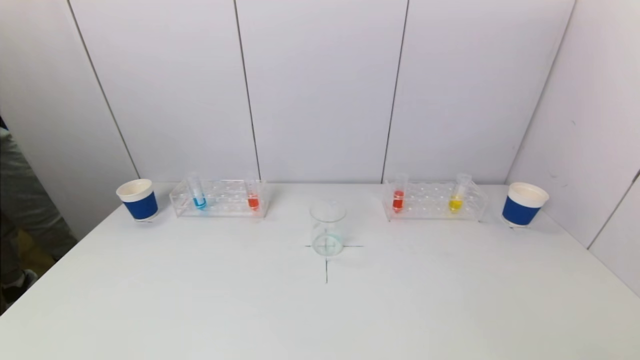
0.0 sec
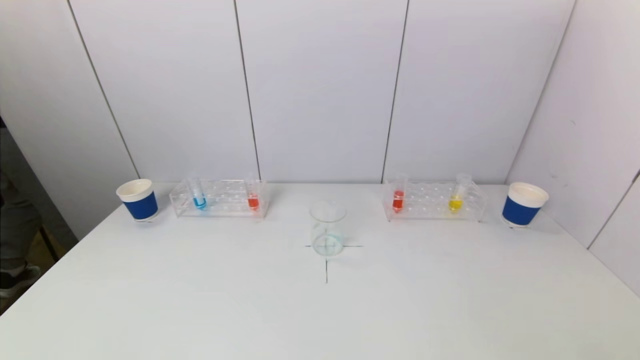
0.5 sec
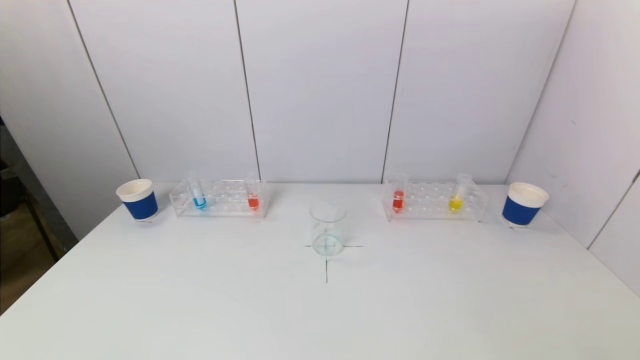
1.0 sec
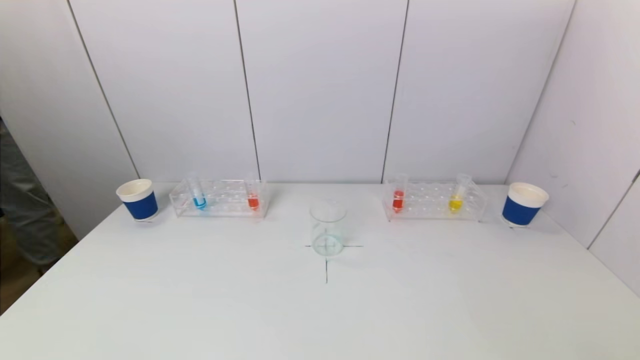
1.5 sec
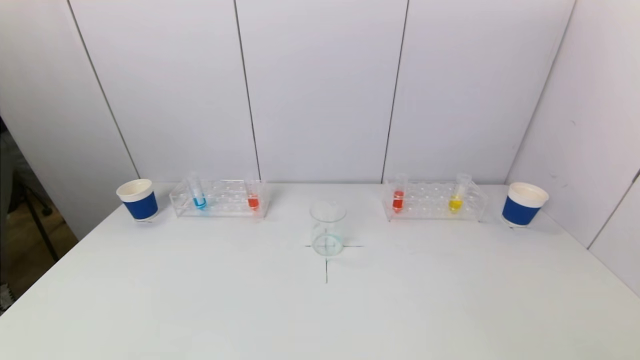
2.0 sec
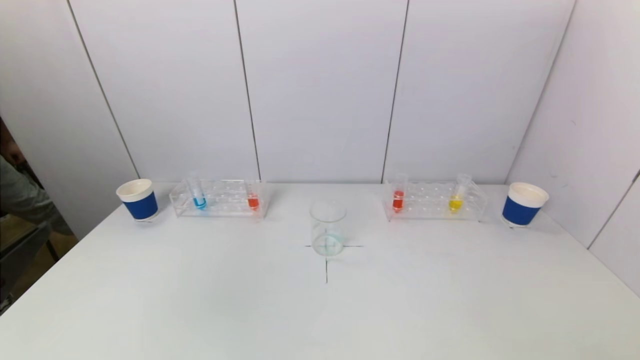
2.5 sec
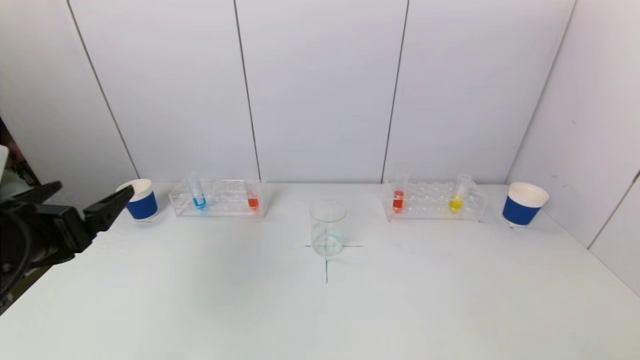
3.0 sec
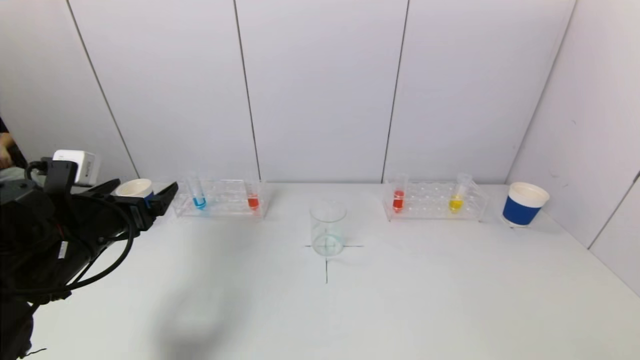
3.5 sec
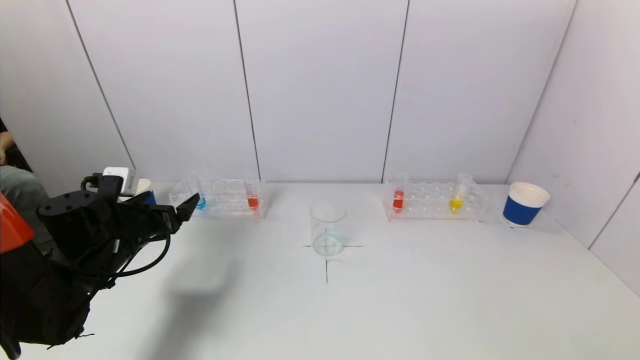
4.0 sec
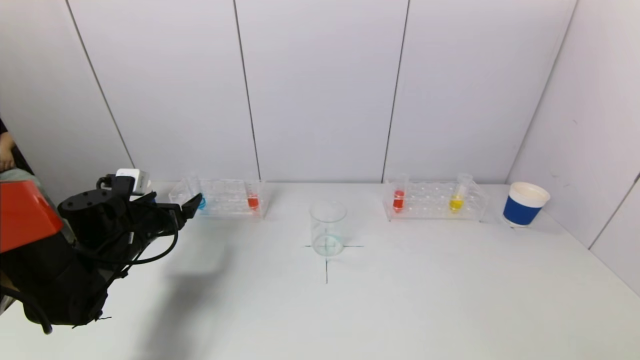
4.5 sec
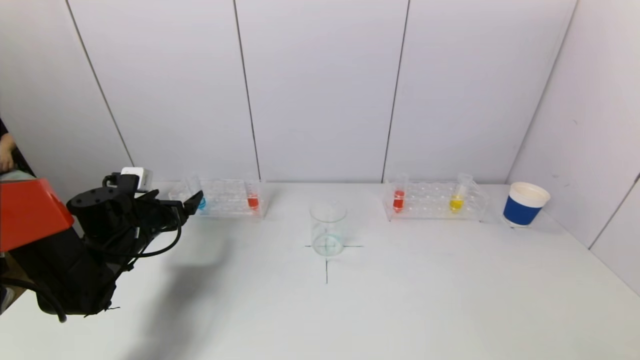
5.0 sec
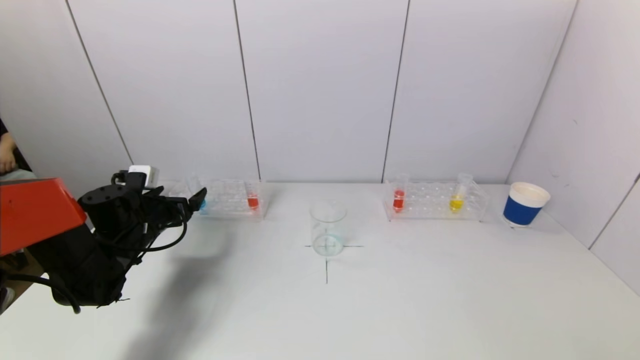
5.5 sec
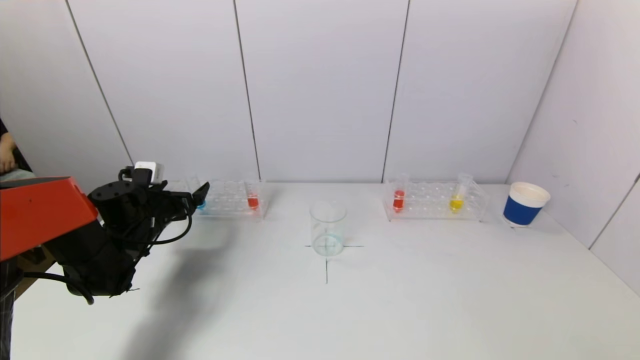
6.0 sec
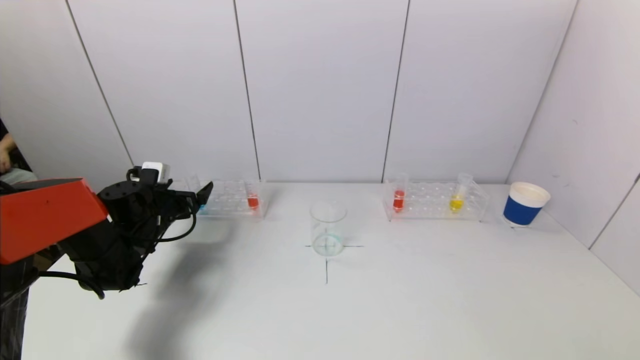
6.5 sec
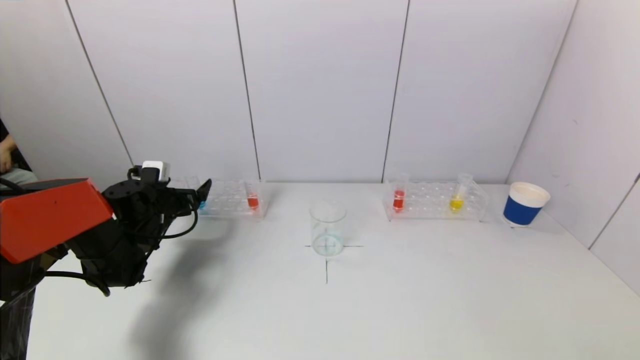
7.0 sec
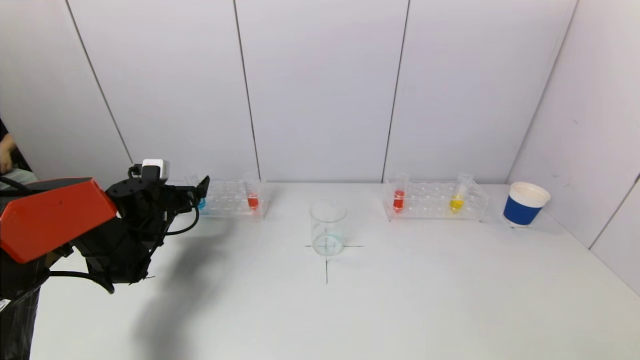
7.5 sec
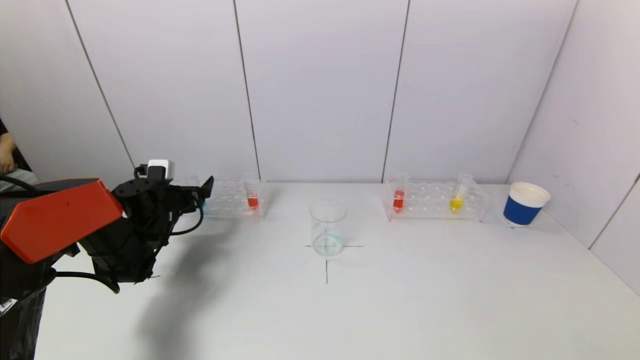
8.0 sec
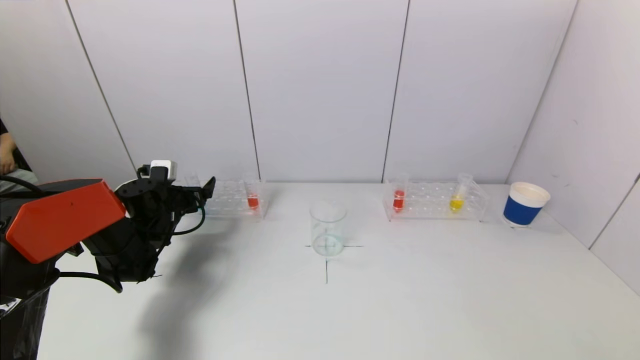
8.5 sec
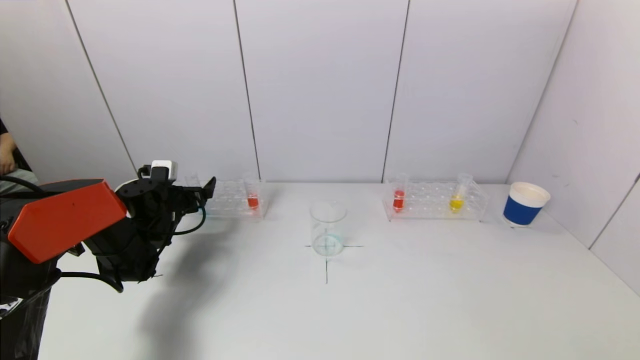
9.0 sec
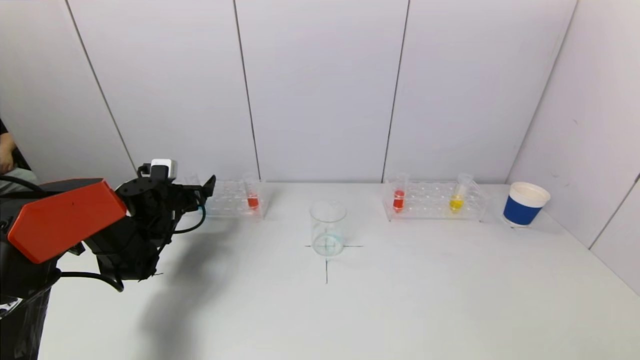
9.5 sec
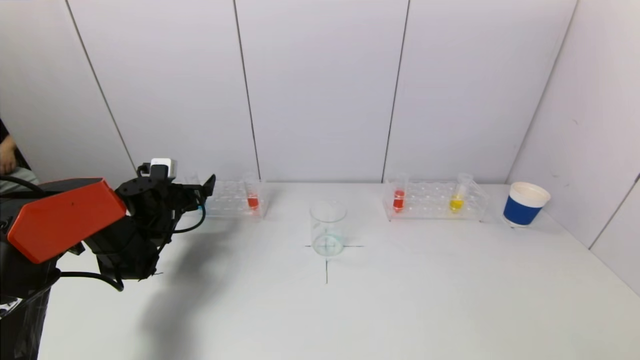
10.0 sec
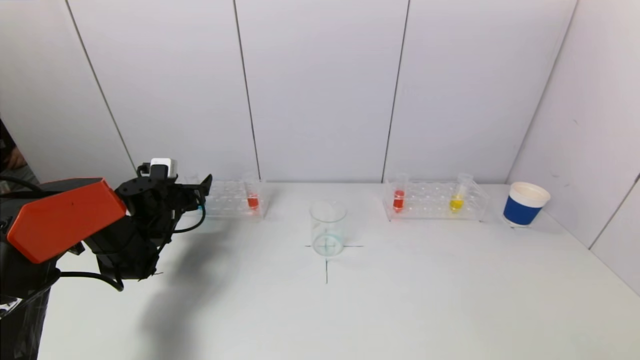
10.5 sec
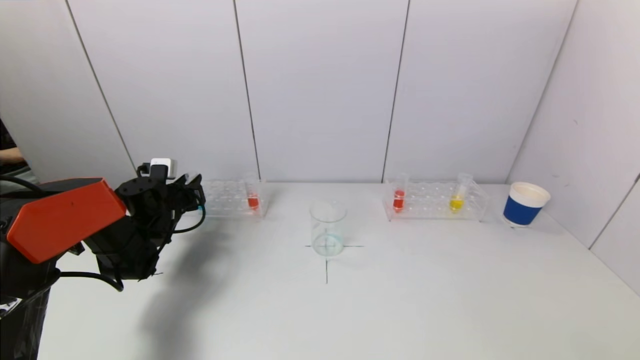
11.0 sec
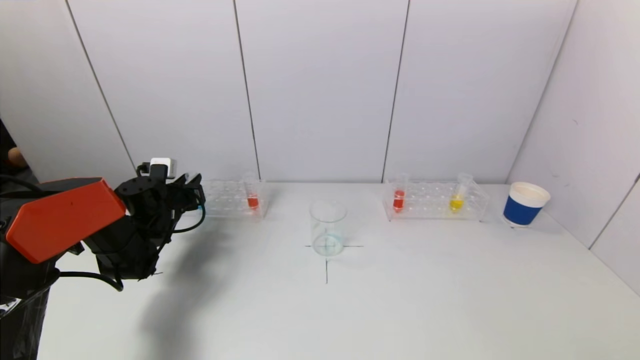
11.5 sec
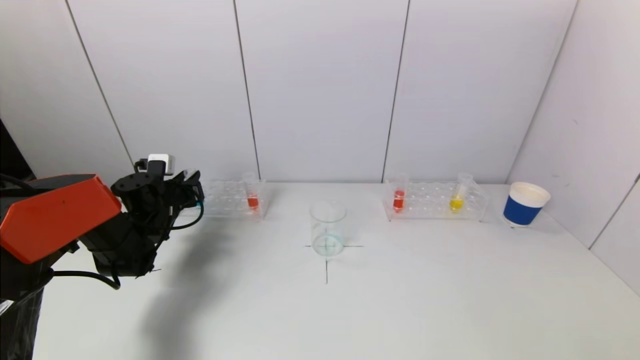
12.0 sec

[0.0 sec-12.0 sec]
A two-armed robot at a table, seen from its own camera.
Task of the whole recording: pick up a test tube with pigment on left test tube rack and a test tube with pigment on right test tube rack by grippers and pour them into the beaker.
Step, 0.0 sec to 11.0 sec: Grasp the blue reagent with the left gripper.
0.0 sec to 2.0 sec: The left gripper moves upward, roughly 10 cm.
2.0 sec to 4.0 sec: The left gripper travels forward by about 35 cm.
4.0 sec to 6.0 sec: The left gripper is displaced forward by approximately 10 cm.
6.0 sec to 8.0 sec: The grippers move only a little.
8.0 sec to 10.0 sec: The two grippers keep their place.
10.0 sec to 12.0 sec: The left gripper closes up.

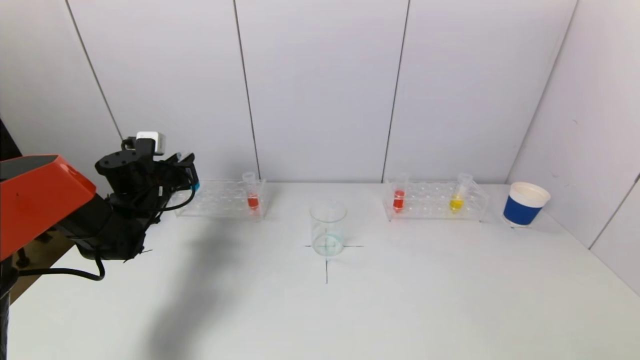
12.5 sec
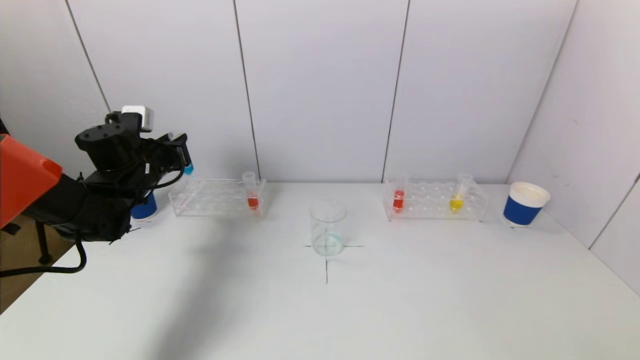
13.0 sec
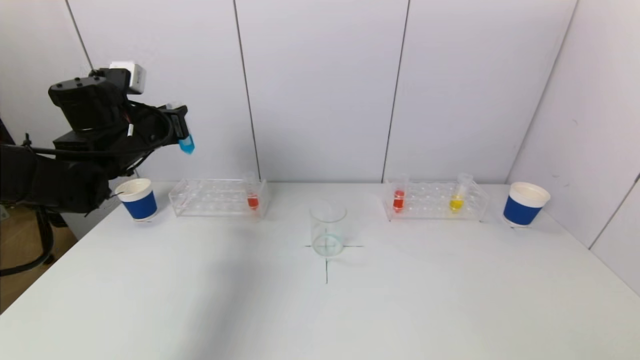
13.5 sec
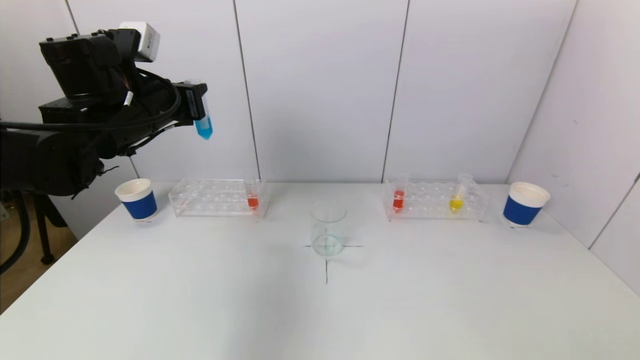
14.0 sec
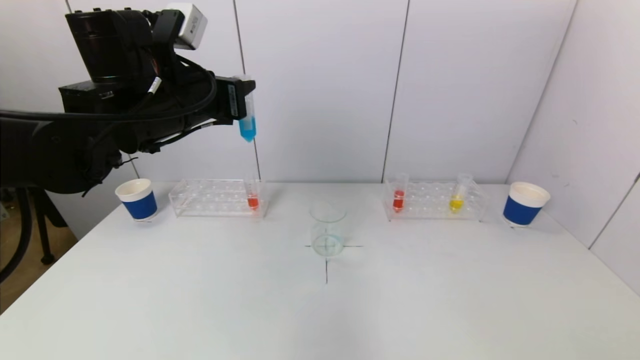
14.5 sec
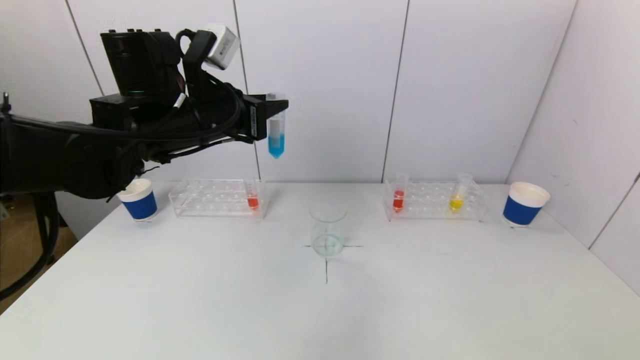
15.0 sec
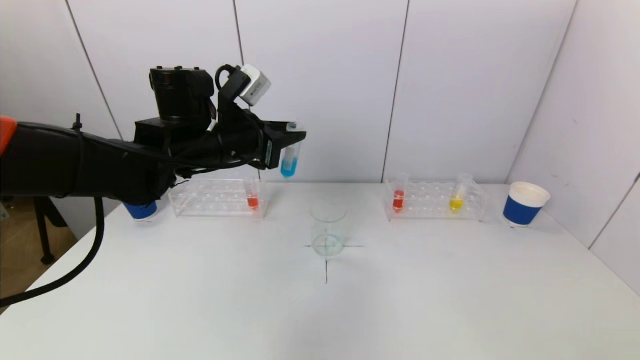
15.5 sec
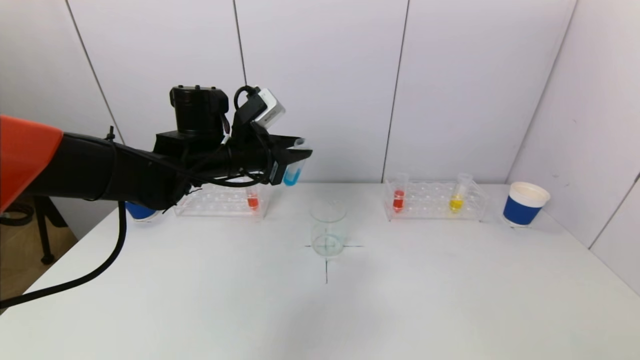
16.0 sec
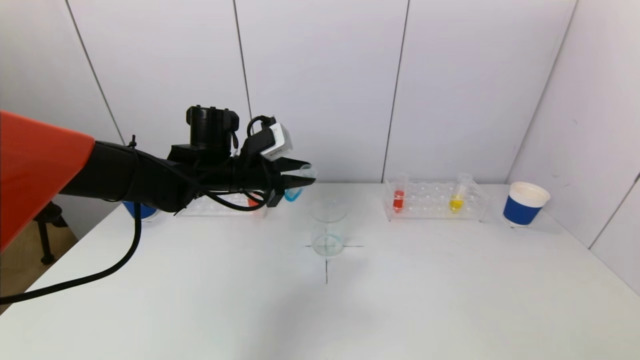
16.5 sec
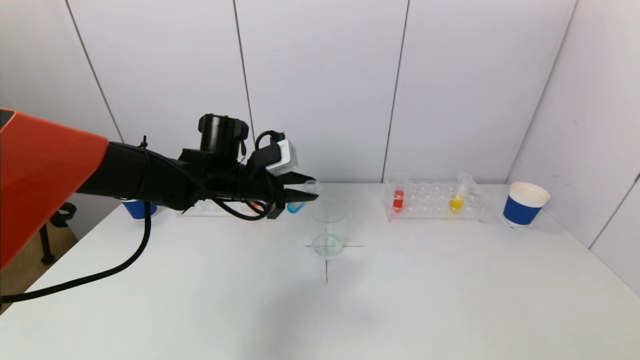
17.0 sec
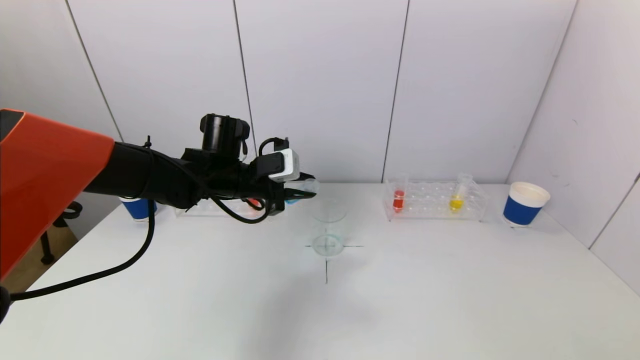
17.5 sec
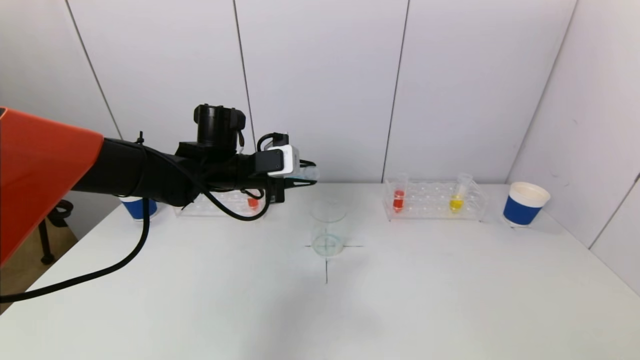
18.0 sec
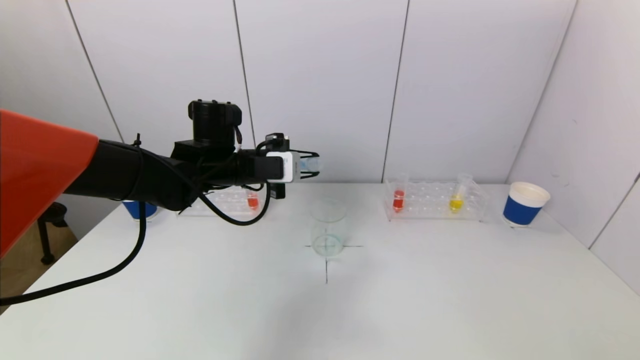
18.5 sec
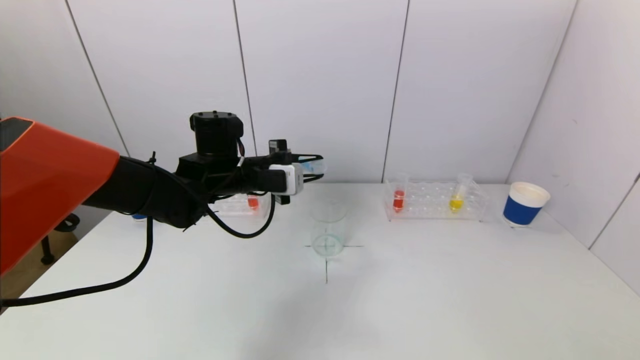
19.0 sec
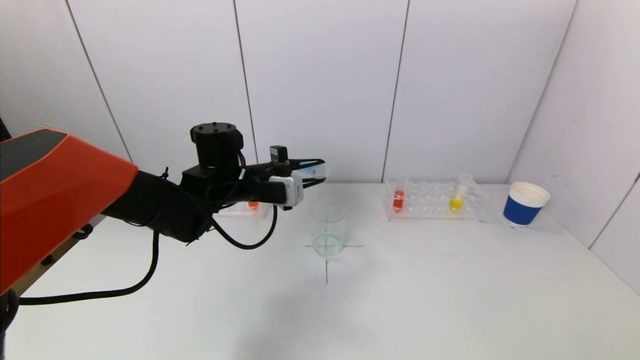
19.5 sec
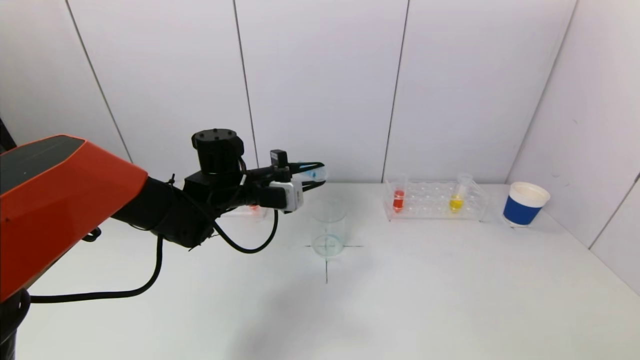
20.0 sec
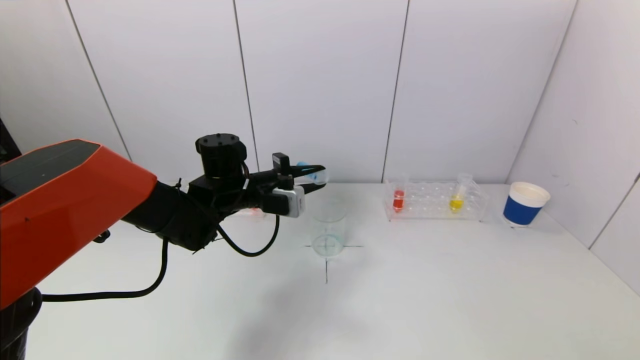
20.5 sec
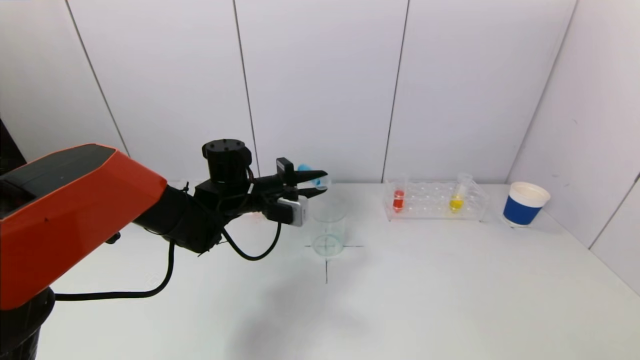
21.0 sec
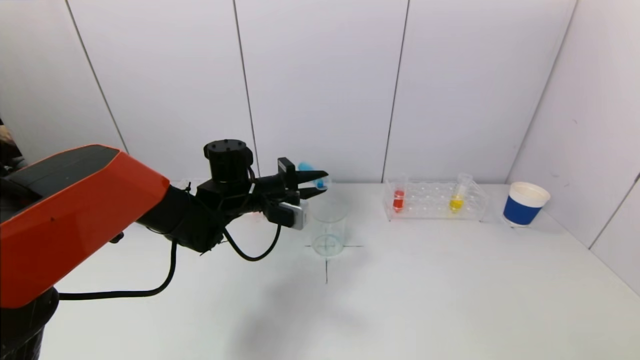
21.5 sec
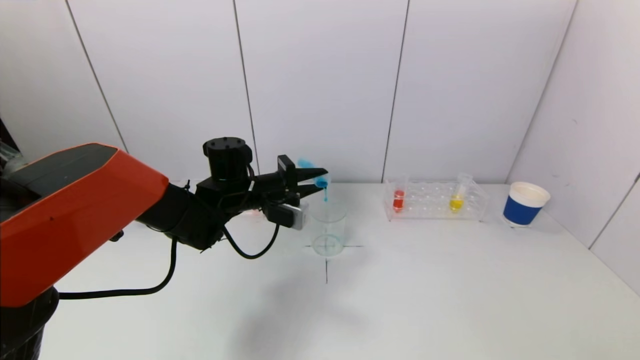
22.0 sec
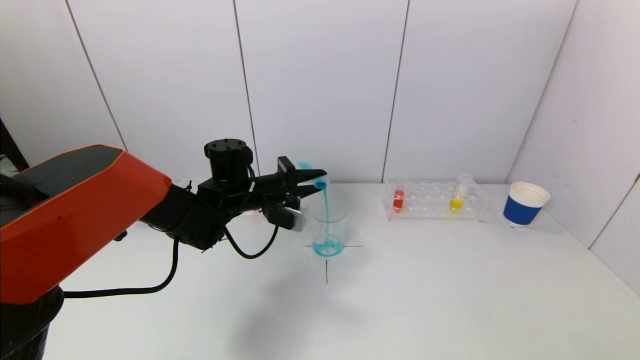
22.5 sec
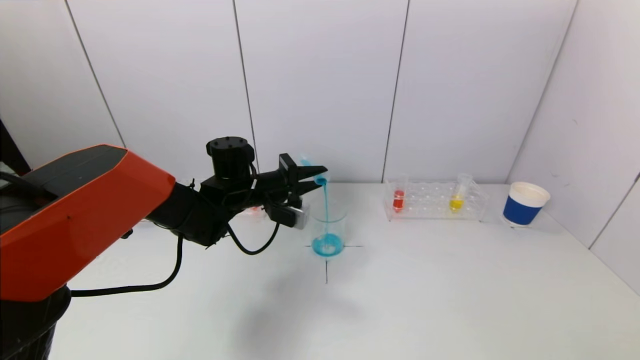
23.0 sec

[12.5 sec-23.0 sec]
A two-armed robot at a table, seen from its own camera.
Task of the whole recording: pick up a test tube with pigment on left test tube rack and a test tube with pigment on right test tube rack by grippers and pour them into the beaker.
12.5 sec to 14.5 sec: The left gripper goes approximately 25 cm upward, to the right and backward.
14.5 sec to 16.5 sec: The left gripper shifts about 15 cm downward and forward.
19.0 sec to 21.0 sec: The grippers stay close to where they were, moving slightly.
21.0 sec to 23.0 sec: There are only small adjustments of the grippers.
